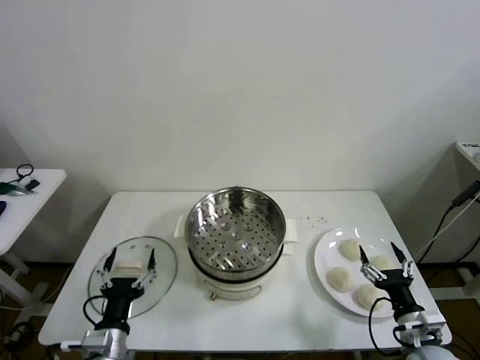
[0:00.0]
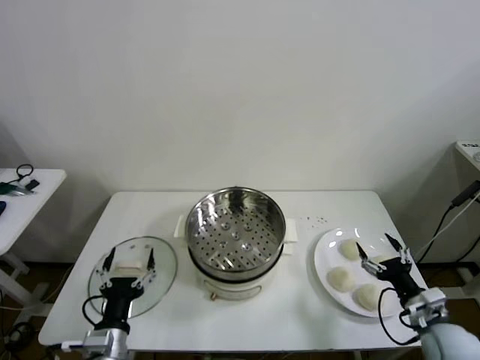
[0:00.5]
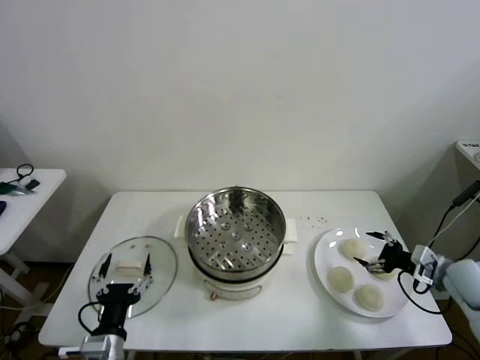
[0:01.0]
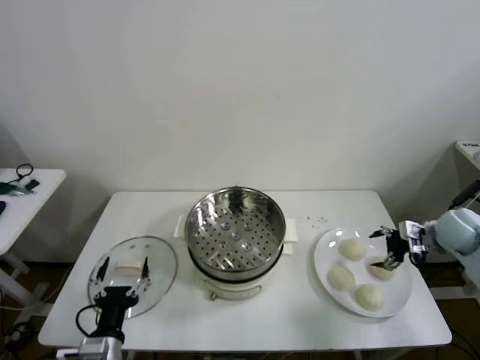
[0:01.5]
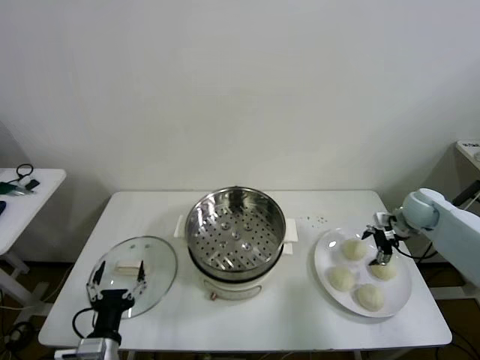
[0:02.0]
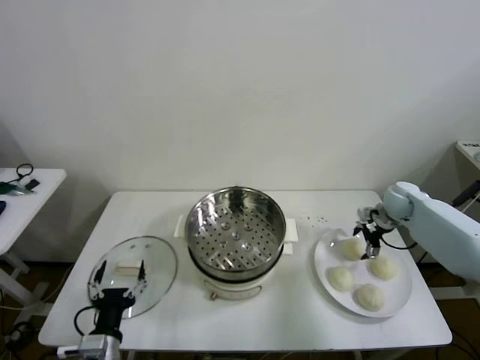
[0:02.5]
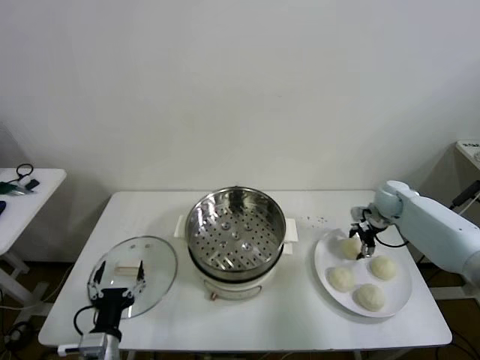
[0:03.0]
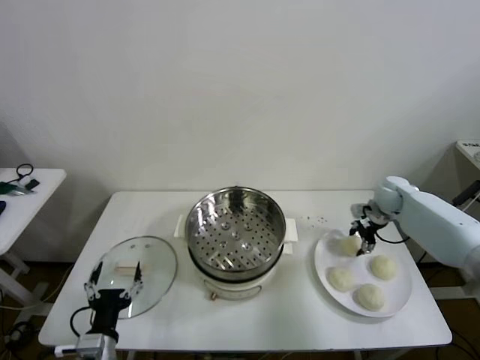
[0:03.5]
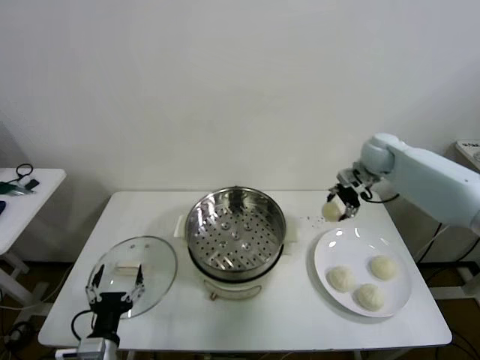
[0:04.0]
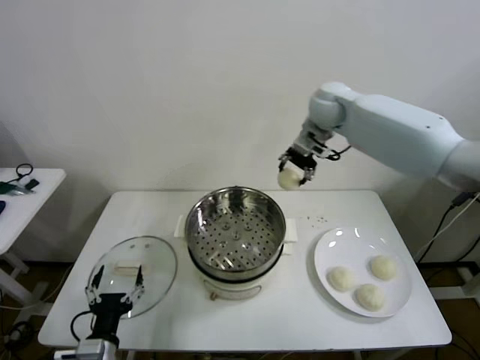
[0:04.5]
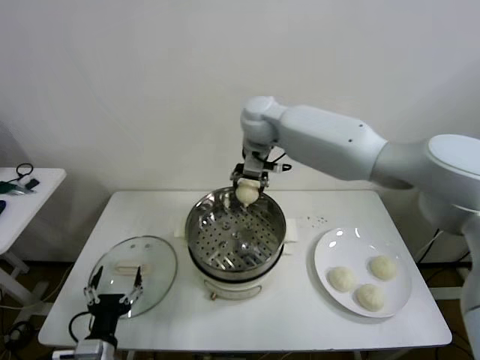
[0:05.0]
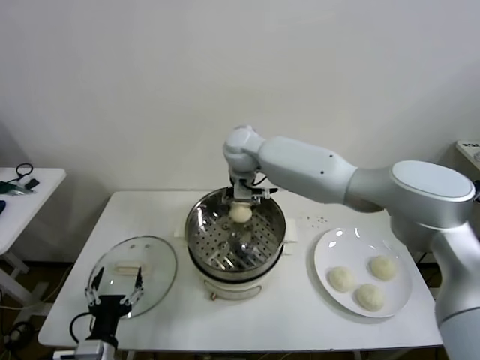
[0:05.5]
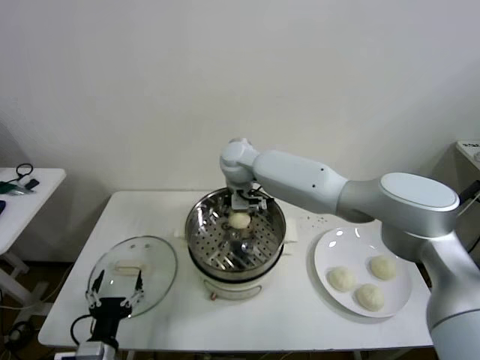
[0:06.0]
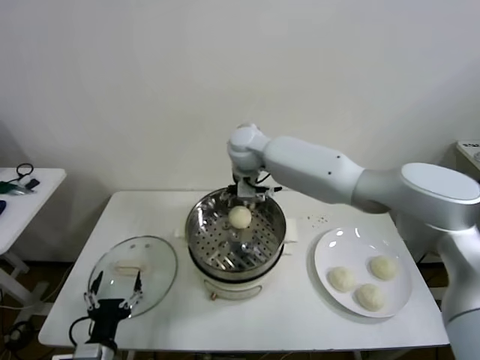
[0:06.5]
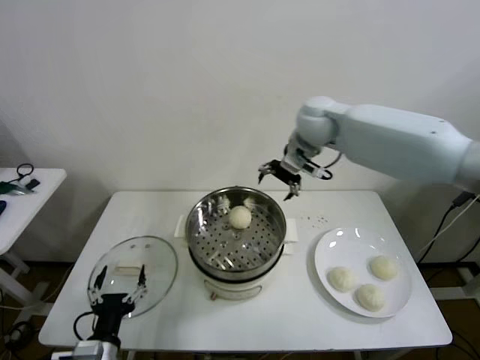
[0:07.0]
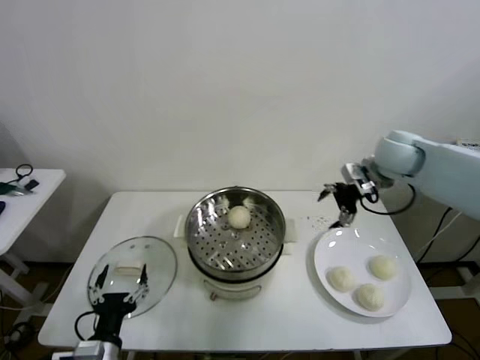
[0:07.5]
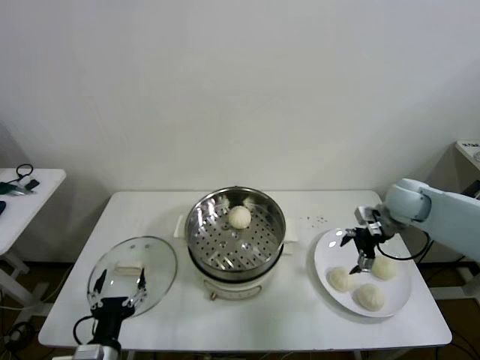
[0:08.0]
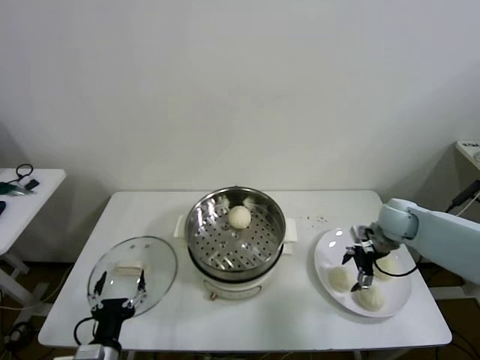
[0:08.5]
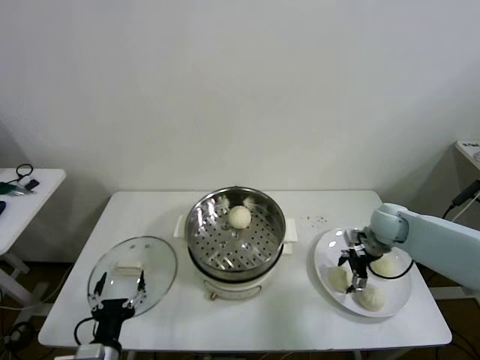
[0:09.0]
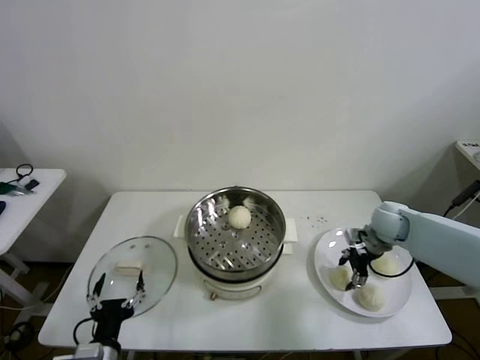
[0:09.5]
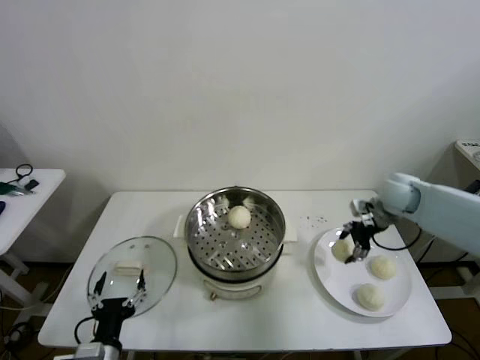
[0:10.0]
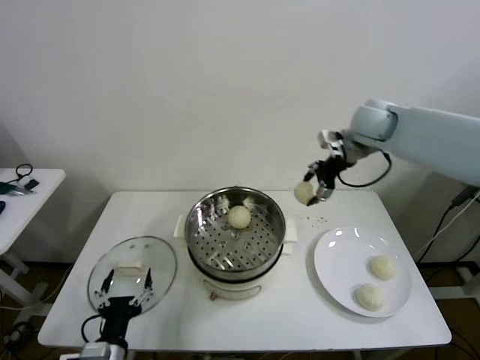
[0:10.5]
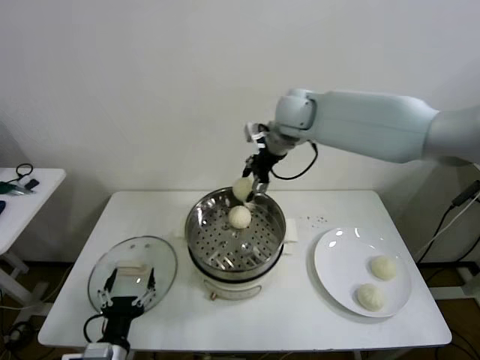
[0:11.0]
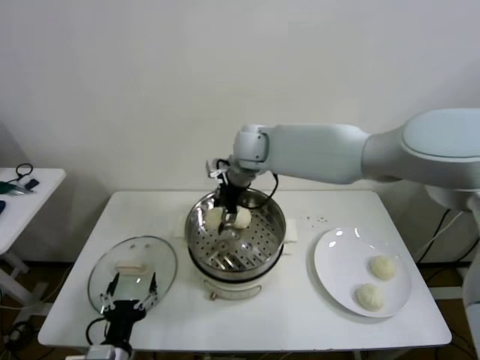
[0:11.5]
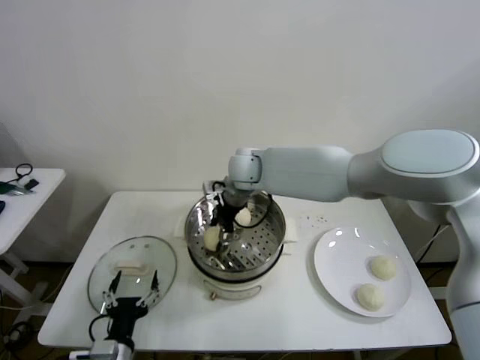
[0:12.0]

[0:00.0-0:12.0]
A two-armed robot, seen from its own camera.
Step, 0:00.0 to 0:03.0: Grasp the baozi in the plate with right gripper.
Step, 0:03.5 to 0:06.0: Place the baozi on the steamer with right gripper.
Step, 0:06.5 to 0:09.0: Grasp the baozi in the plate with right gripper.
0:02.0 to 0:04.0: The right gripper shifts roughly 20 cm upward, to the left and forward, and closes up.
0:04.0 to 0:06.0: The right gripper goes about 35 cm to the left, and opens its fingers.
0:06.0 to 0:08.0: The right gripper moves to the right, approximately 40 cm.
0:08.0 to 0:10.0: The right gripper ends up some 5 cm from where it was, and closes.
0:10.0 to 0:12.0: The right gripper shifts approximately 35 cm to the left.

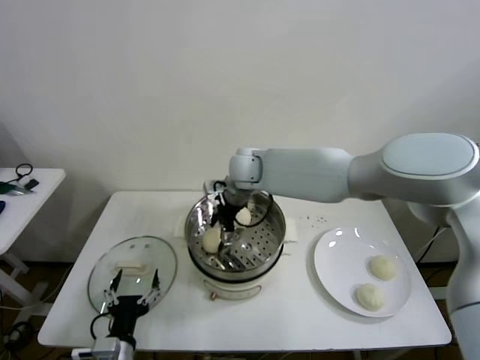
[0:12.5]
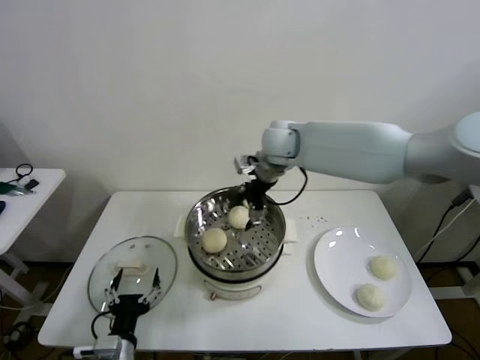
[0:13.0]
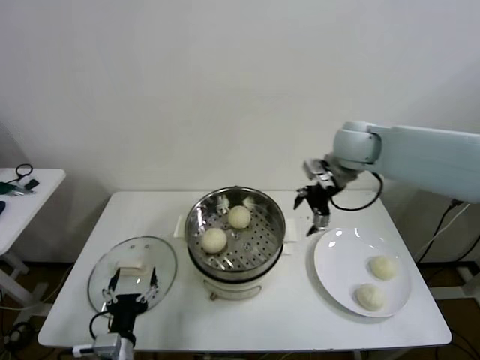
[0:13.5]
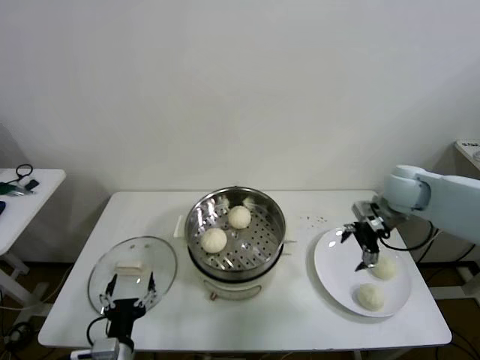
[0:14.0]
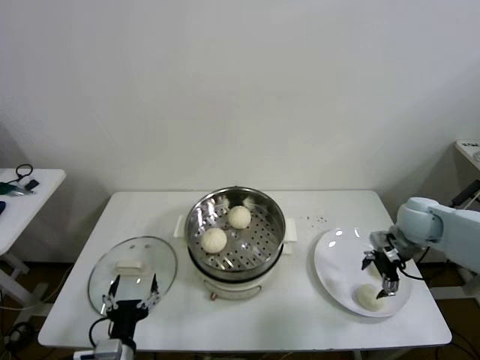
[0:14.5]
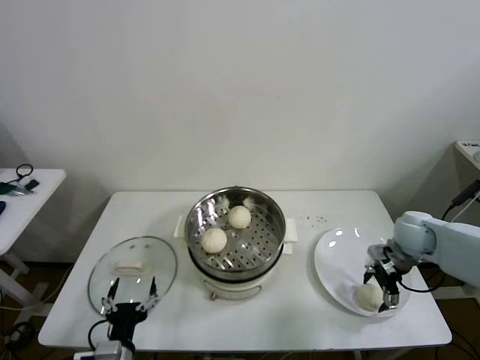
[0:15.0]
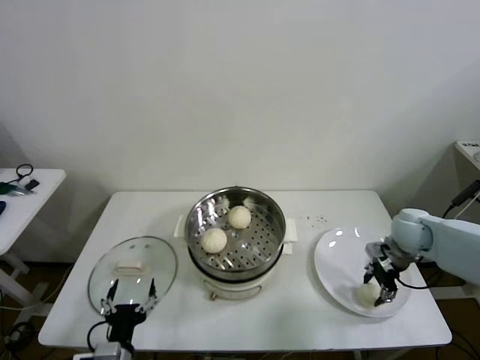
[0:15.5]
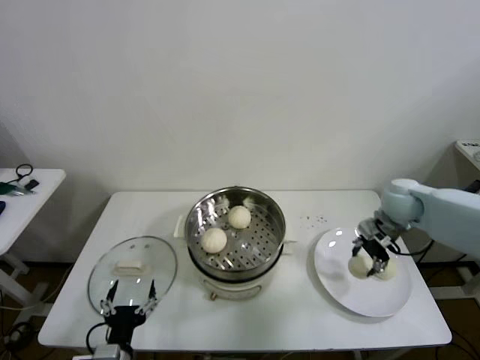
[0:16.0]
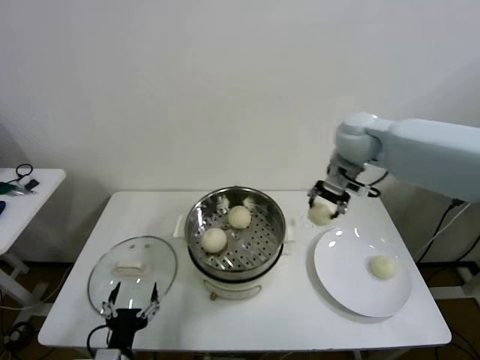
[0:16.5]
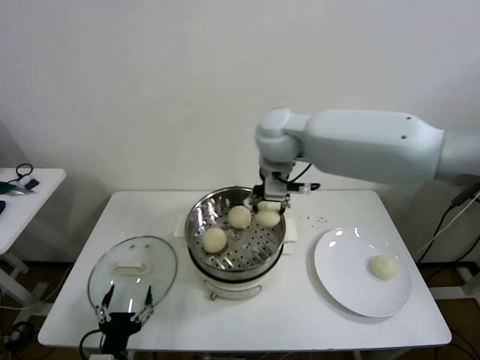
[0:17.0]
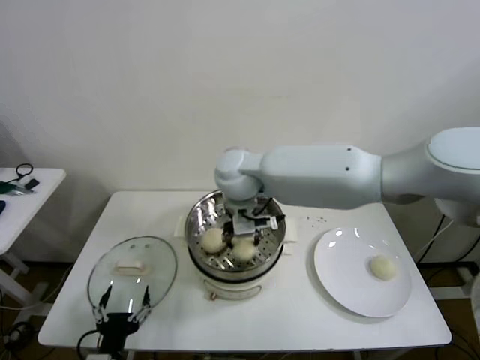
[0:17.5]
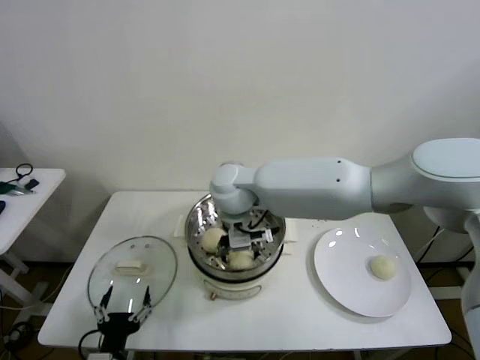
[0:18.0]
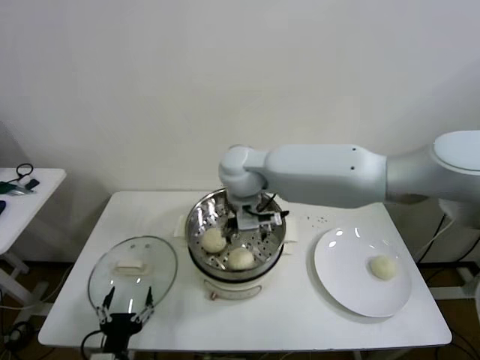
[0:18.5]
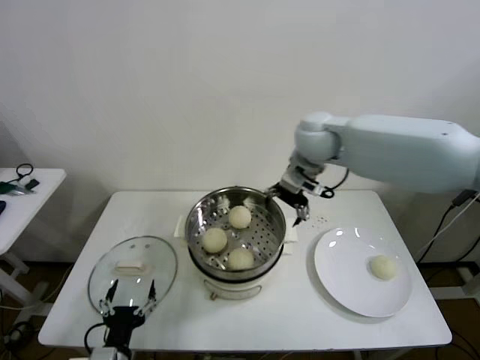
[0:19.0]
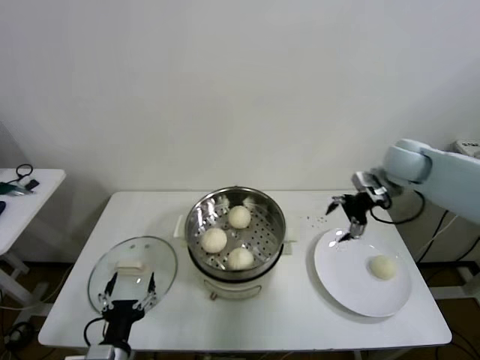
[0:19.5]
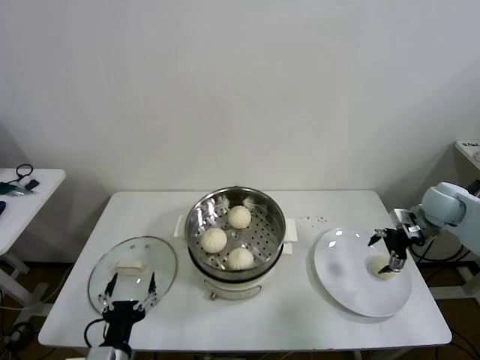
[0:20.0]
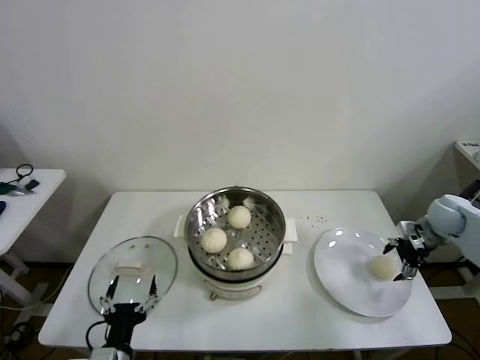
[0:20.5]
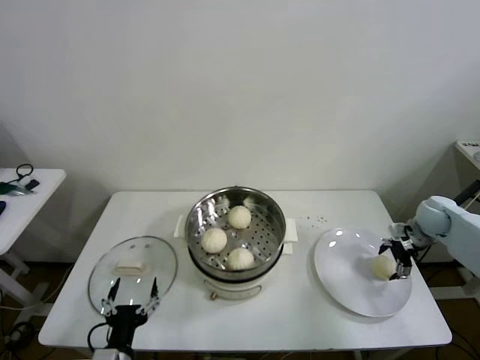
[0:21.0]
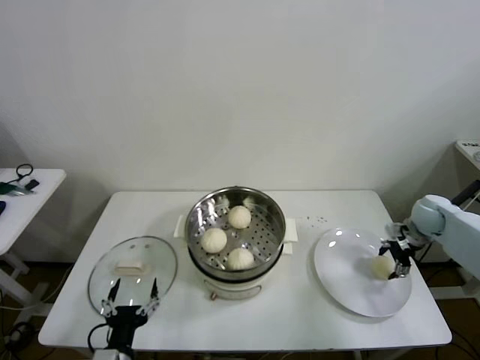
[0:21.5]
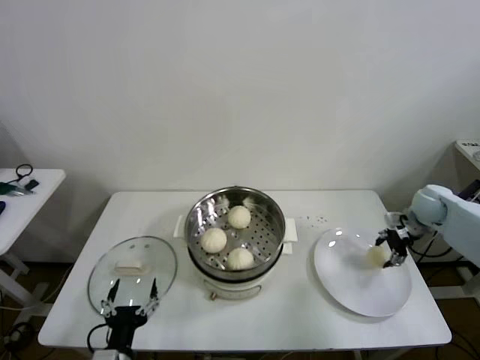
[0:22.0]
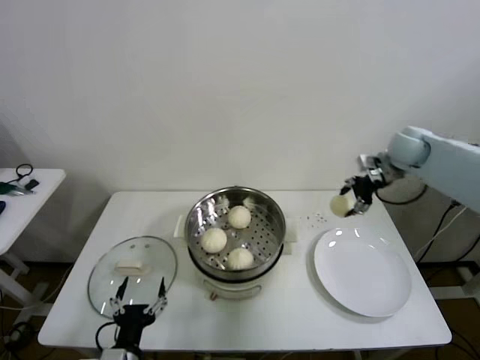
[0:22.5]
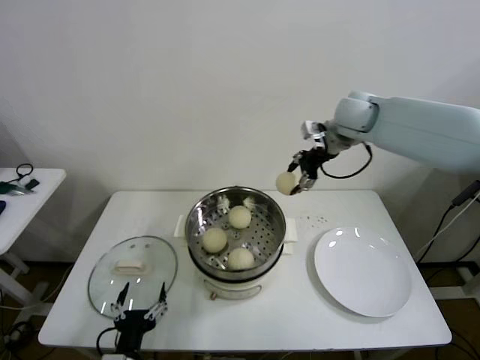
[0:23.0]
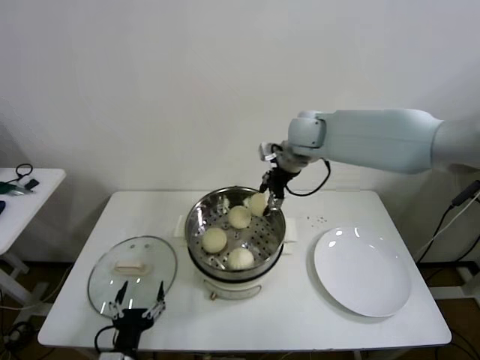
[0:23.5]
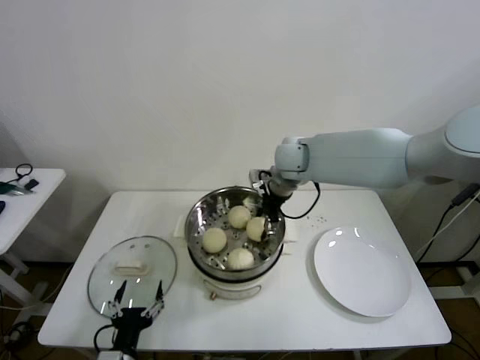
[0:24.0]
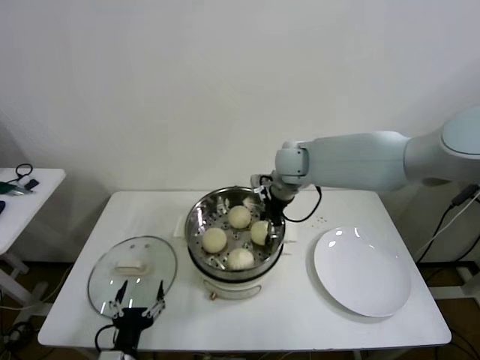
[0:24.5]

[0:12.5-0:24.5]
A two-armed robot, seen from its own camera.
Step, 0:13.0 to 0:15.0: Grasp the baozi in the plate with right gripper.
Step, 0:15.5 to 0:18.0: Place the baozi on the steamer with right gripper.
Step, 0:18.5 to 0:21.5: Grasp the baozi in the plate with right gripper.
0:12.5 to 0:14.5: The right gripper is displaced to the right by some 40 cm.
0:14.5 to 0:16.5: The right gripper goes about 30 cm to the left, upward and forward, and closes up.
0:16.5 to 0:18.5: The right gripper is displaced to the left by approximately 20 cm, and opens its fingers.
0:18.5 to 0:20.5: The right gripper travels to the right by roughly 50 cm.
0:20.5 to 0:22.5: The right gripper moves upward, to the left and forward, some 20 cm, and closes its fingers.
0:22.5 to 0:24.5: The right gripper goes some 25 cm to the left.

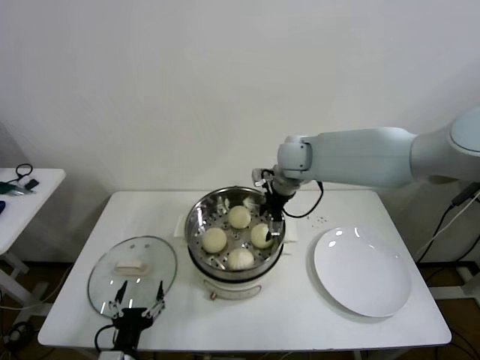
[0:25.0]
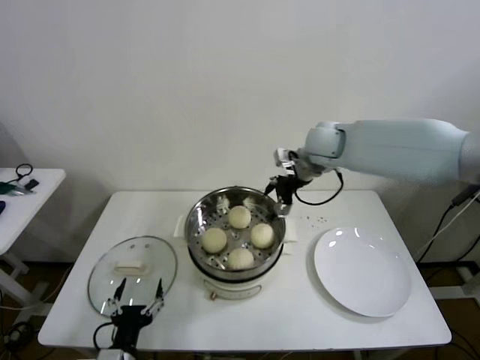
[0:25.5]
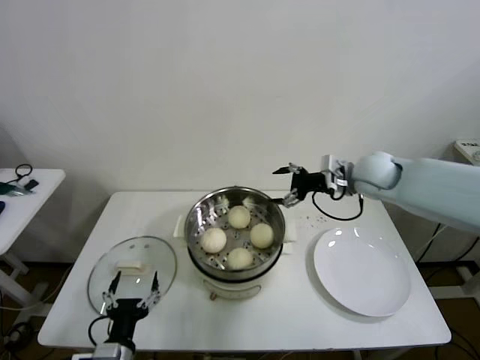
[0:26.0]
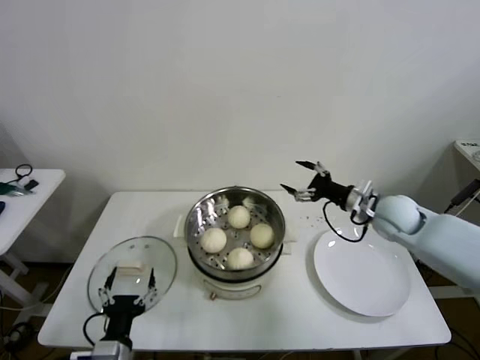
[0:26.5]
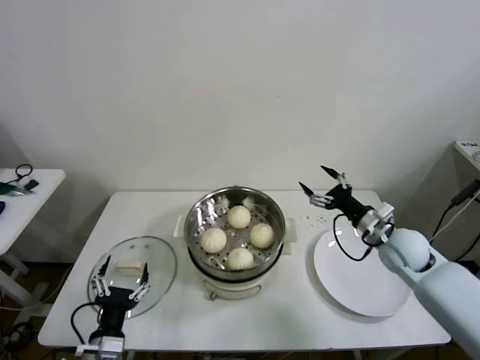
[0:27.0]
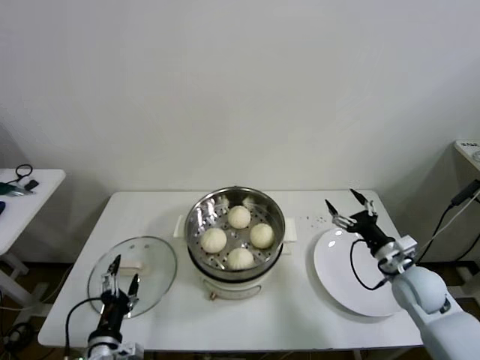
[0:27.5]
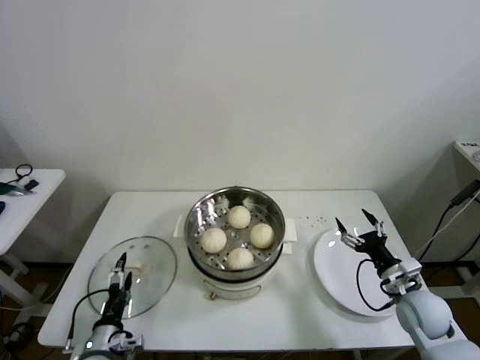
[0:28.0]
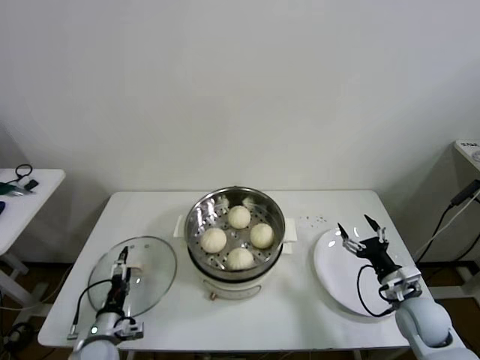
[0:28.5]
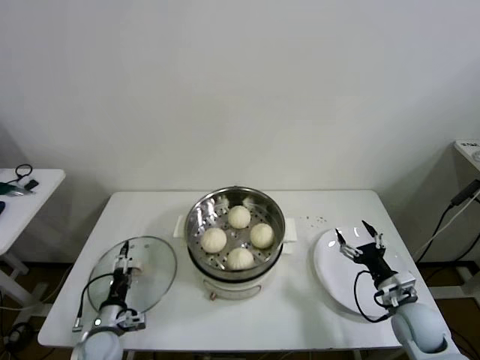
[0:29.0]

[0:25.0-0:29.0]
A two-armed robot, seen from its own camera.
0:25.0 to 0:27.0: The right gripper travels to the right, downward and backward by some 30 cm.
0:27.0 to 0:29.0: The left gripper shifts about 15 cm downward, forward and to the left. Meanwhile the right gripper shifts some 15 cm backward and downward.
